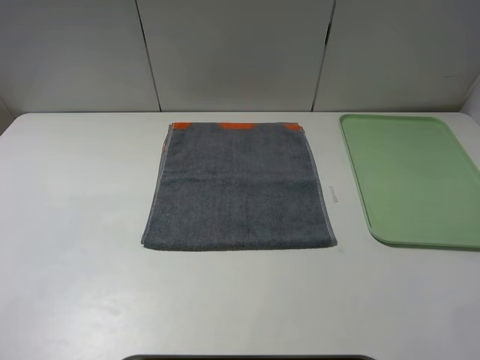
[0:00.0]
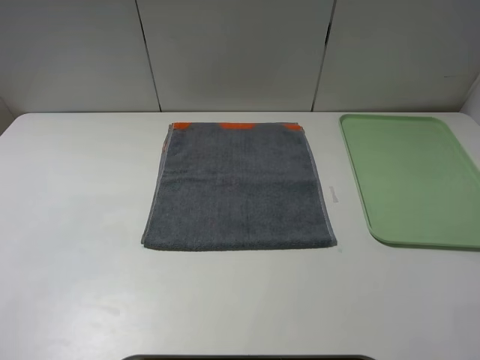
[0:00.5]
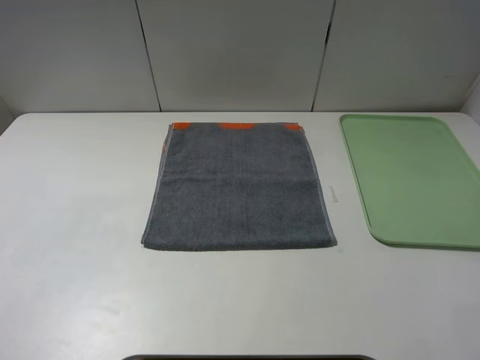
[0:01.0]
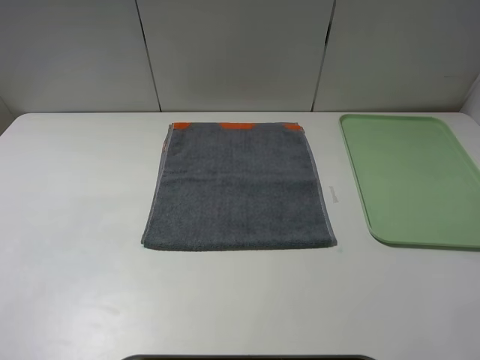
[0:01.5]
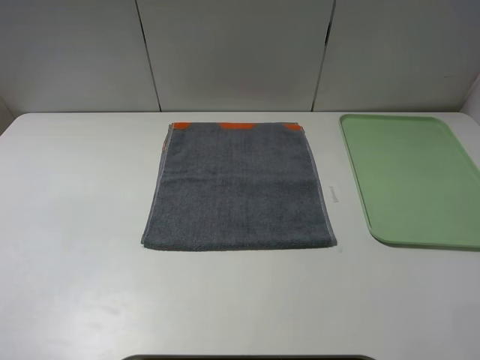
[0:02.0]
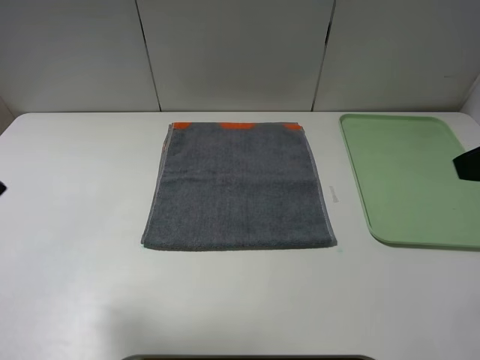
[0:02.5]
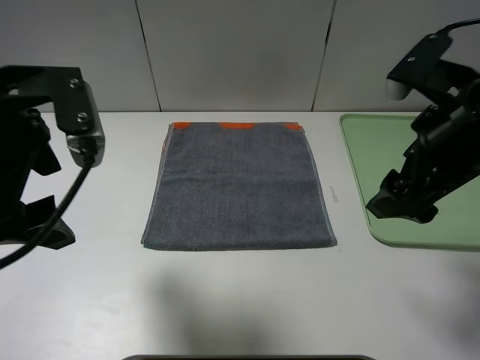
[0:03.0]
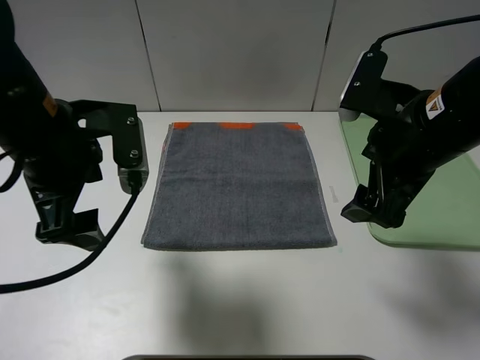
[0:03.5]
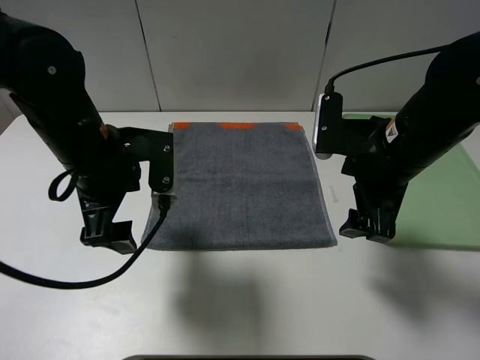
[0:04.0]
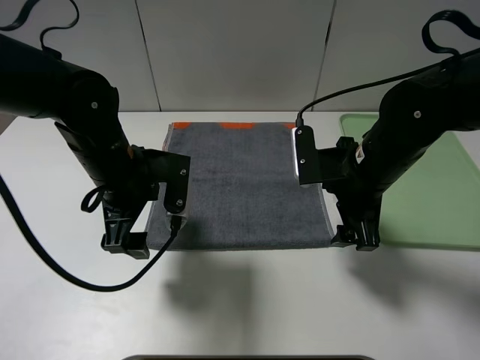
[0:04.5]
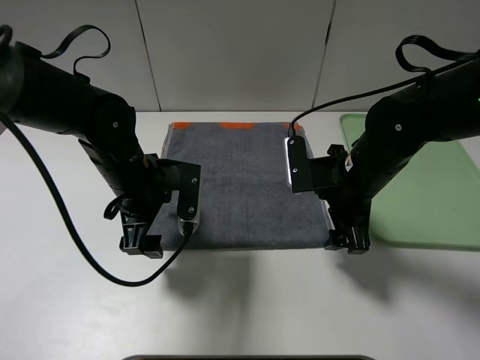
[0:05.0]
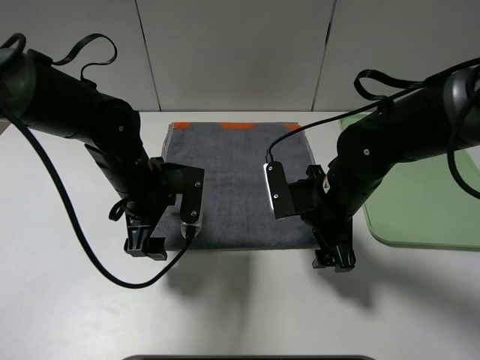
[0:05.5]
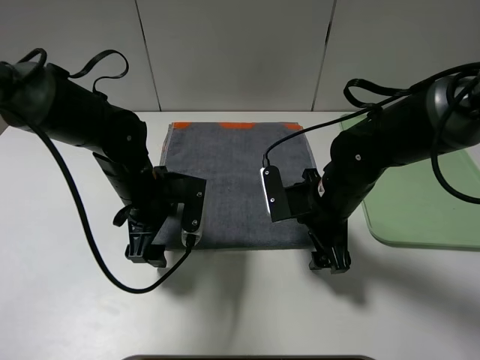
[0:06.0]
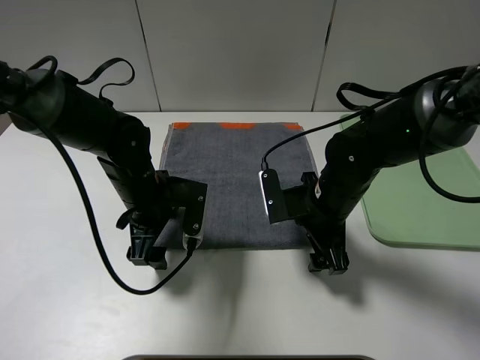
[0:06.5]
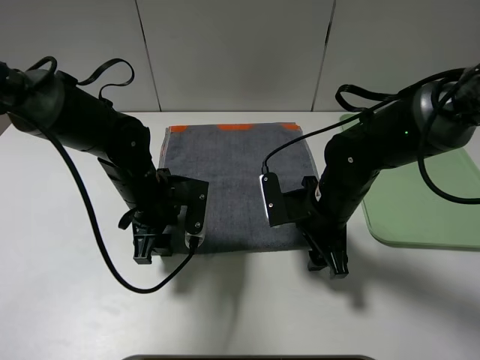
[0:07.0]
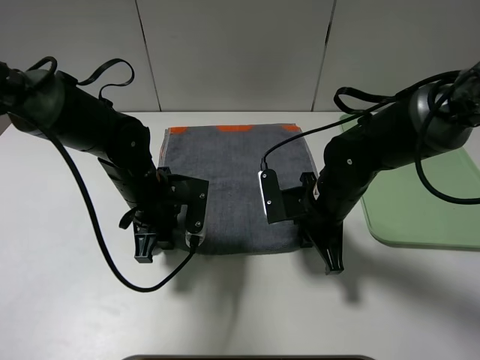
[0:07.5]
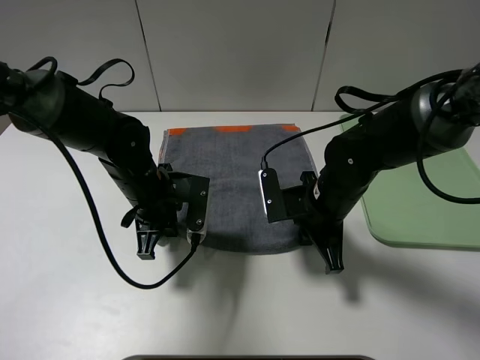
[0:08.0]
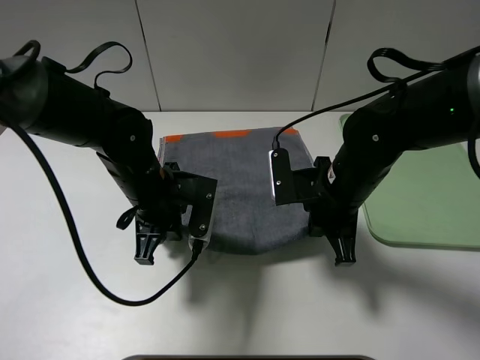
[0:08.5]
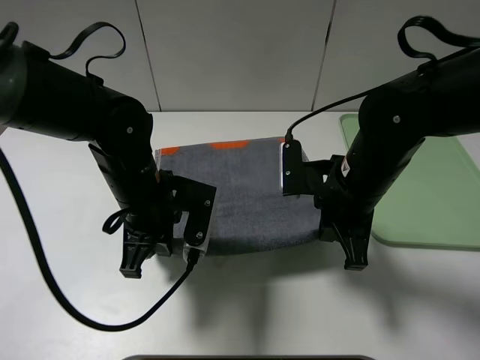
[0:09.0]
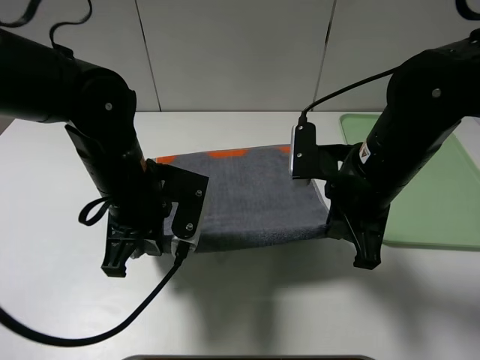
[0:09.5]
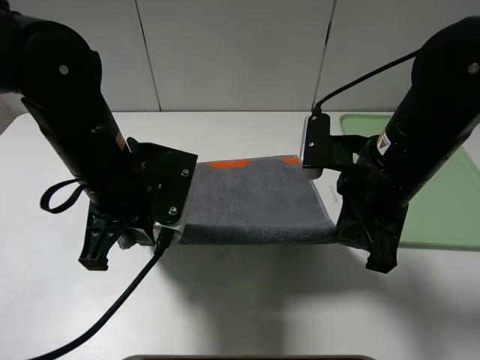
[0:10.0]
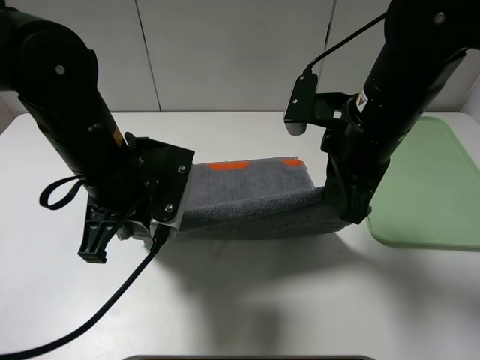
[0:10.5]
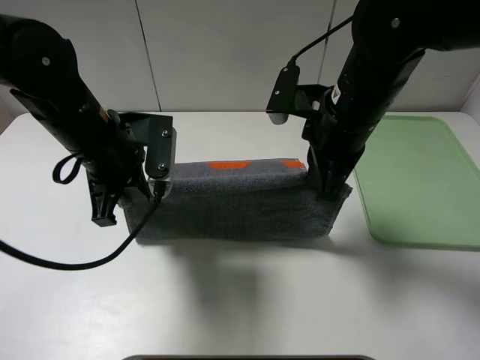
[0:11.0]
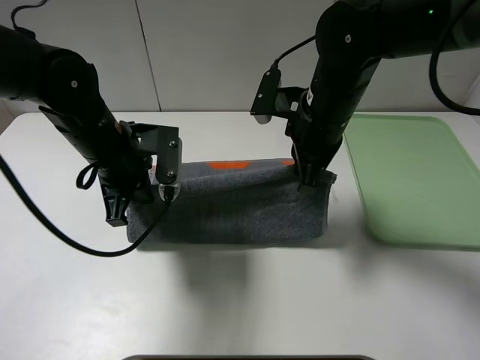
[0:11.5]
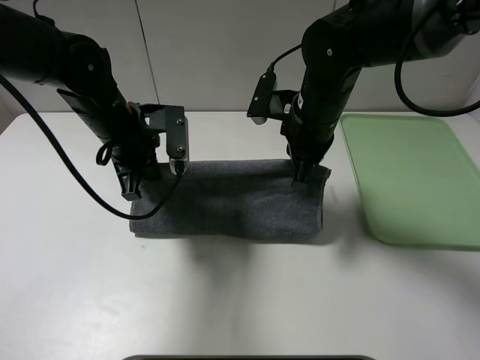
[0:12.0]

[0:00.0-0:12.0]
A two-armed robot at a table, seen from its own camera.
0:02.0 to 0:04.0: The right gripper travels forward, to the left and downward by about 25 cm; the left gripper travels forward, to the right and downward by roughly 30 cm.
0:04.0 to 0:06.0: Both grippers move downward, roughly 10 cm.
0:06.0 to 0:08.0: The left gripper closes its fingers. Meanwhile the right gripper closes its fingers.
0:08.0 to 0:10.0: The left gripper shifts some 15 cm upward and backward; the right gripper moves upward, some 10 cm.
0:10.0 to 0:12.0: The two grippers go roughly 10 cm forward.

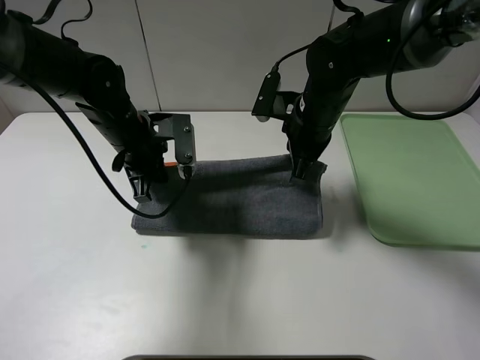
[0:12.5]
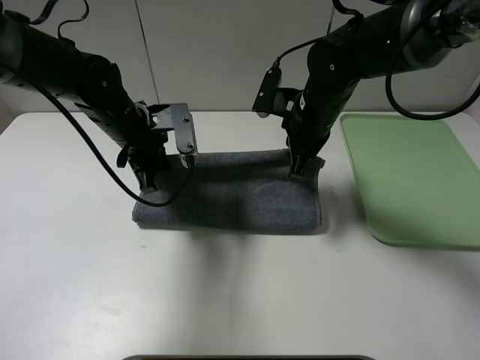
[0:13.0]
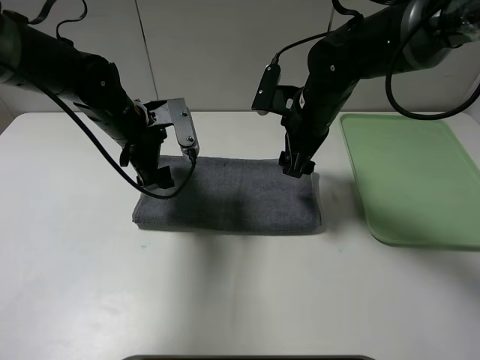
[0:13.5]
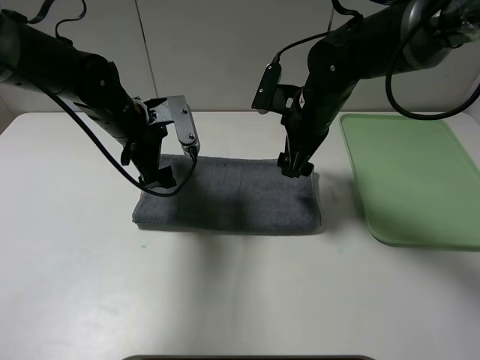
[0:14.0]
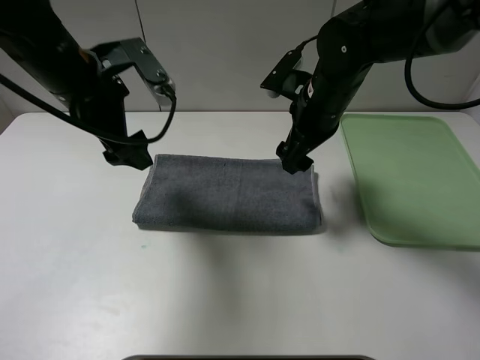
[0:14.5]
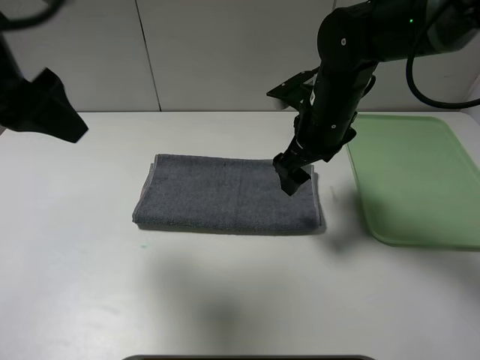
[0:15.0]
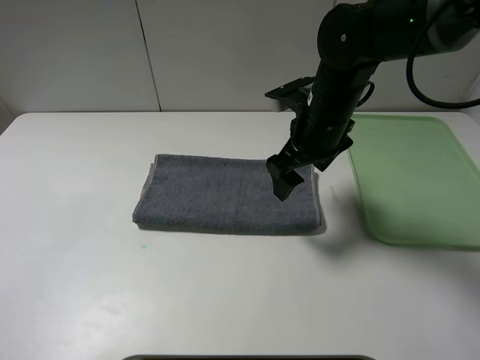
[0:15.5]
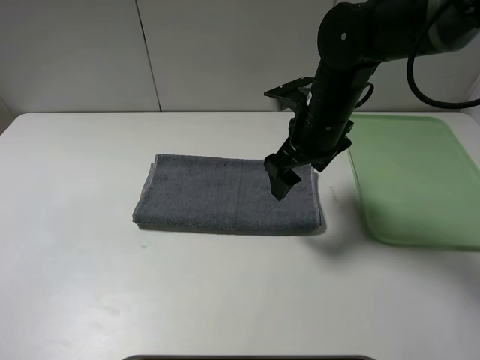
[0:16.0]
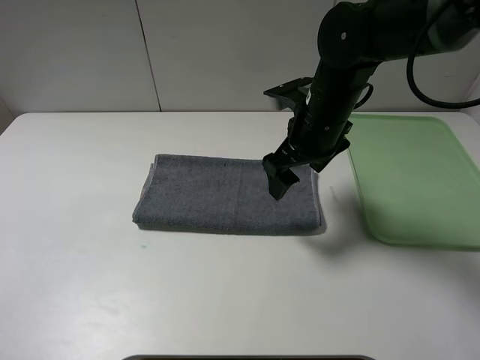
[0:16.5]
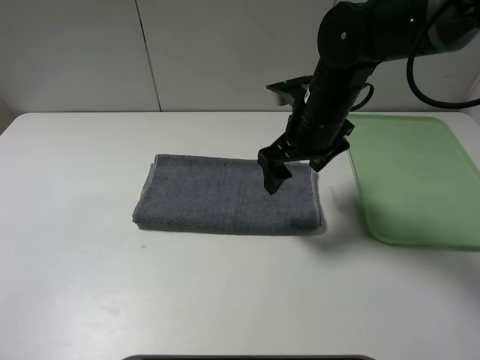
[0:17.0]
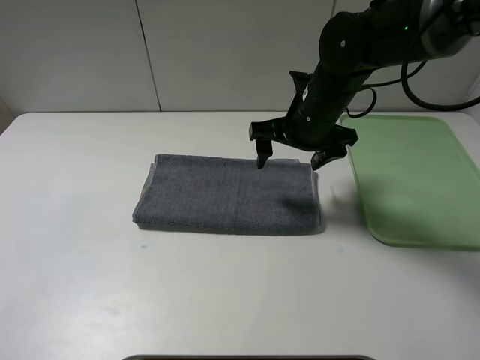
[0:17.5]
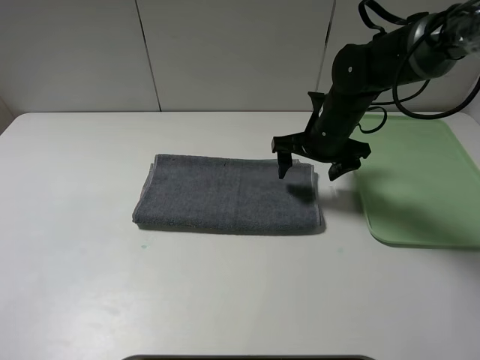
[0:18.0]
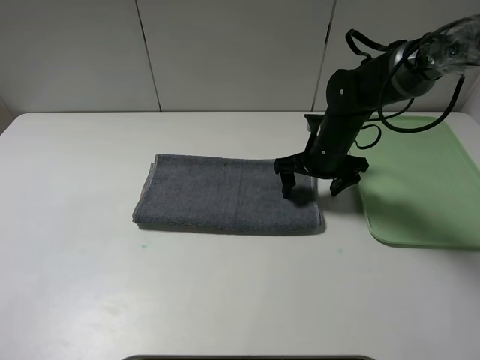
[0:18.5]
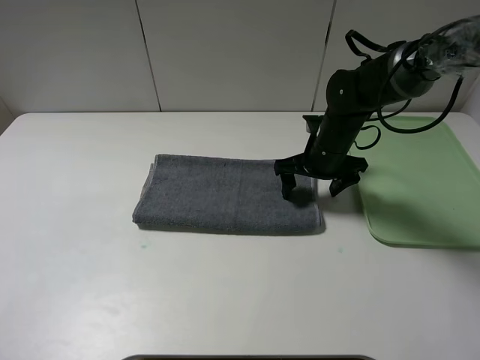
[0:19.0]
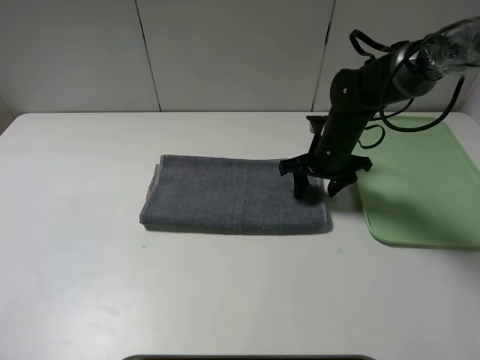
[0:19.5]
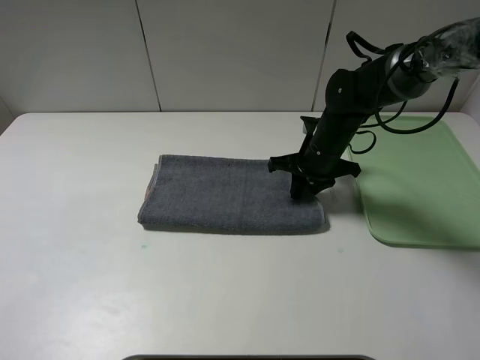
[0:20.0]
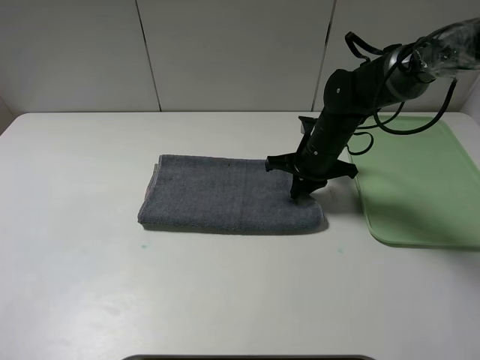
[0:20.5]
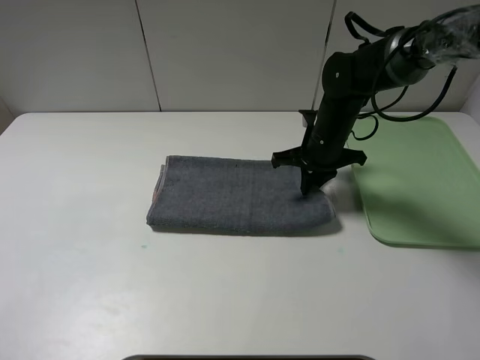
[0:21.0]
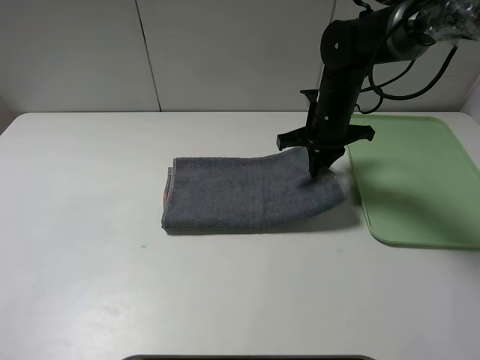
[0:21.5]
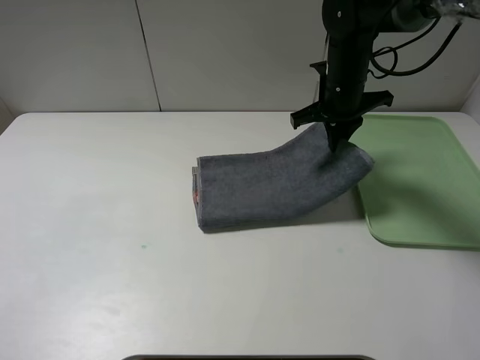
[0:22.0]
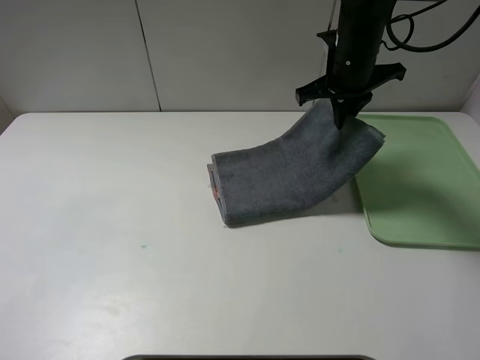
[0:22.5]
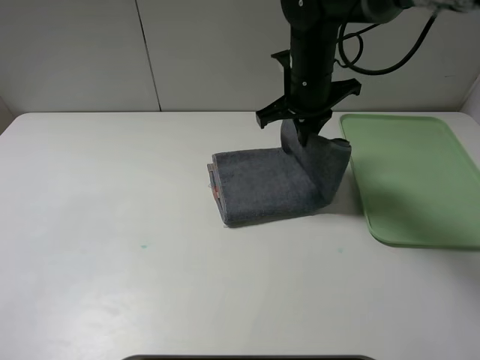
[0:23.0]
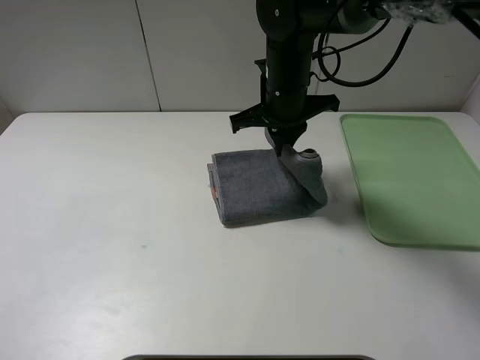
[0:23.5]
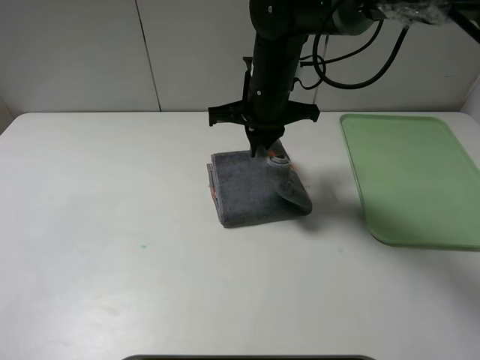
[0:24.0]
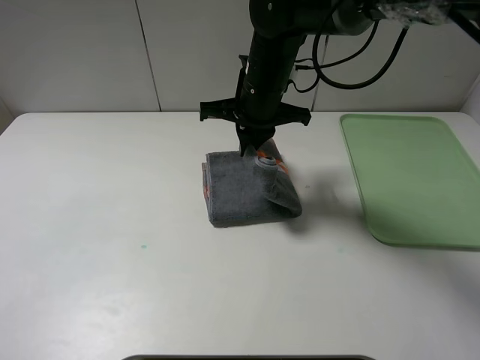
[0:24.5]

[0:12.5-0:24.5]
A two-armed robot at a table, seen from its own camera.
0:12.5 to 0:14.5: The right gripper opens, while the left gripper shifts about 10 cm upward, and opens up.
0:14.5 to 0:16.5: The left gripper is displaced backward and to the left by roughly 35 cm.
0:16.5 to 0:18.5: The right gripper travels downward and forward by roughly 10 cm.
0:18.5 to 0:20.5: The right gripper closes up.
0:20.5 to 0:22.5: The right gripper moves upward, some 15 cm.
0:22.5 to 0:24.5: The right gripper heads to the left, covering approximately 10 cm.

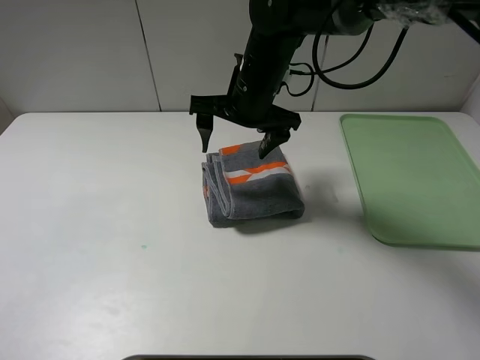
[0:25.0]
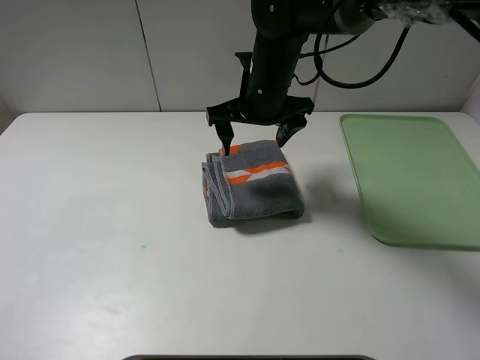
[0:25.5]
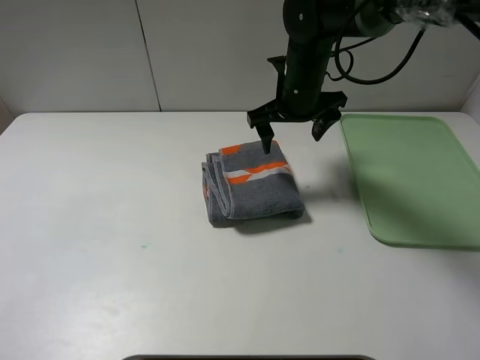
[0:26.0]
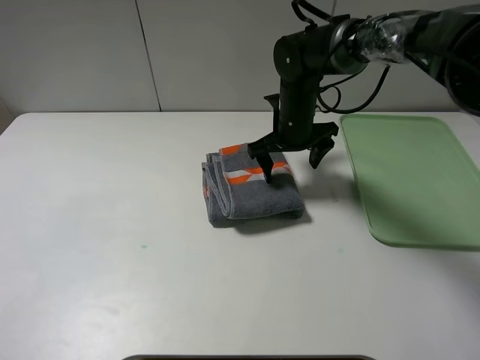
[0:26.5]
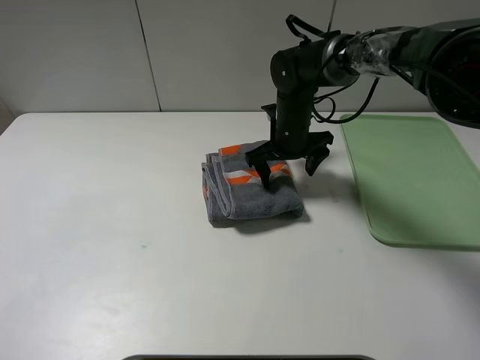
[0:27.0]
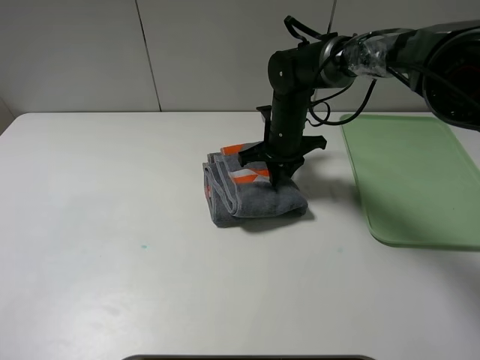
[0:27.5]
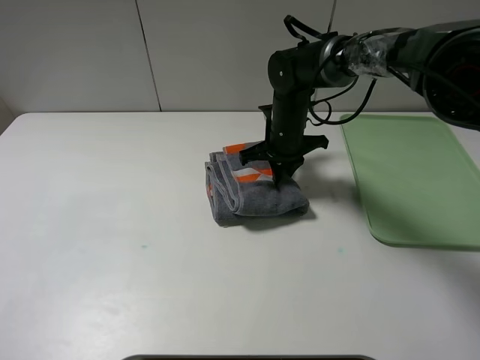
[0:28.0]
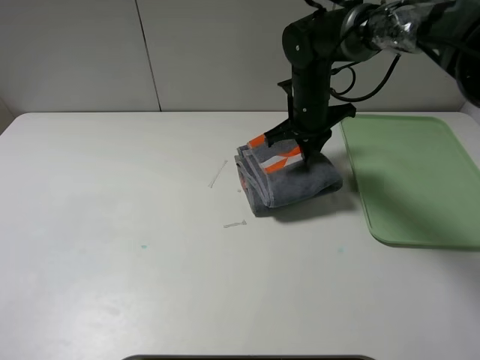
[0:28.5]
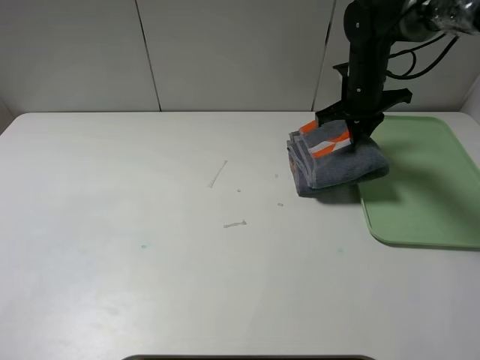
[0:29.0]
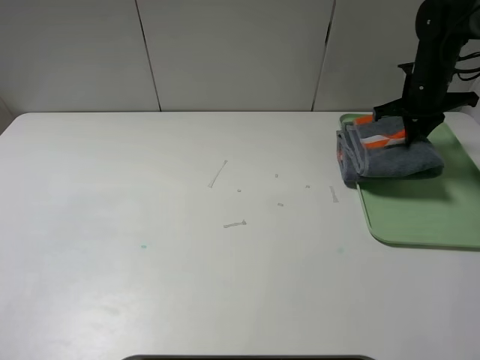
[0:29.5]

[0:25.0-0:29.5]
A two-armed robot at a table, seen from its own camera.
0:25.0 to 0:27.0: The right gripper travels downward and to the right by some 10 cm.
0:27.0 to 0:29.5: The right gripper moves to the right, roughly 25 cm, and closes its fingers.
